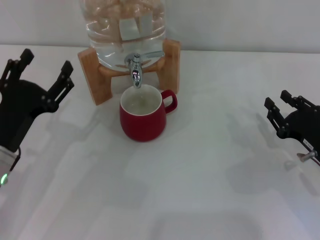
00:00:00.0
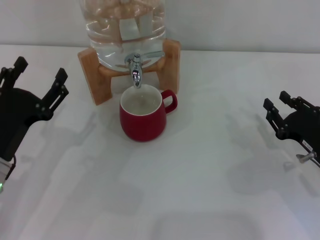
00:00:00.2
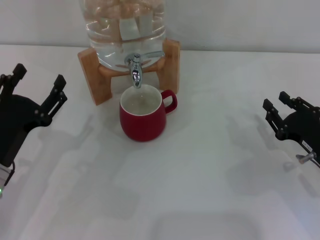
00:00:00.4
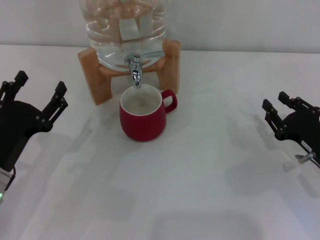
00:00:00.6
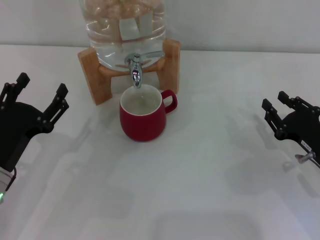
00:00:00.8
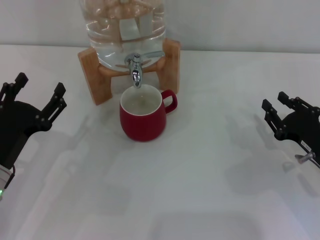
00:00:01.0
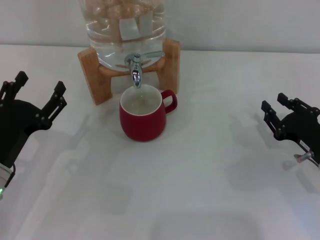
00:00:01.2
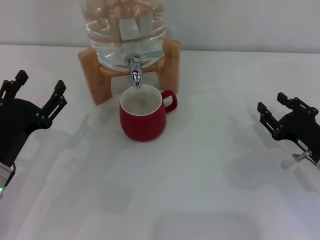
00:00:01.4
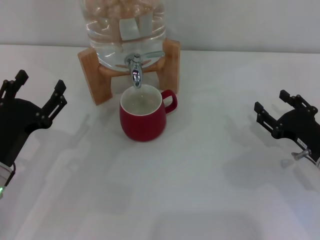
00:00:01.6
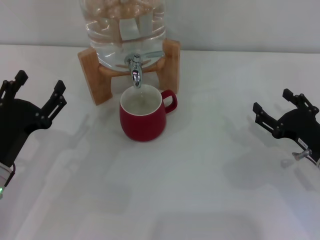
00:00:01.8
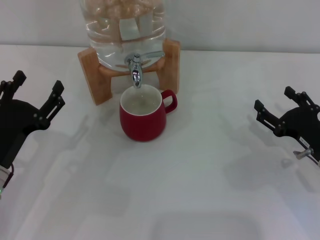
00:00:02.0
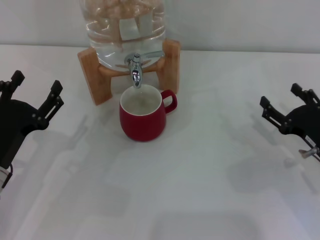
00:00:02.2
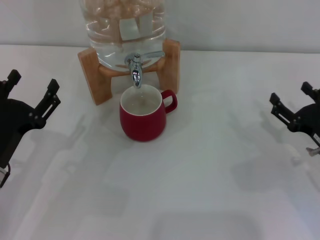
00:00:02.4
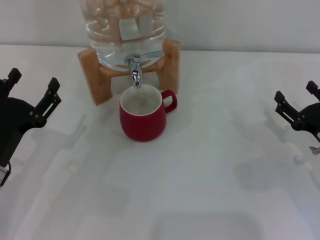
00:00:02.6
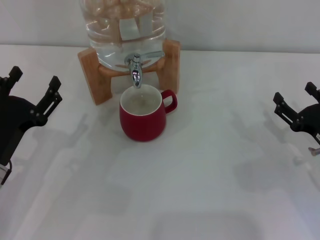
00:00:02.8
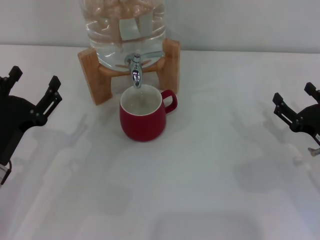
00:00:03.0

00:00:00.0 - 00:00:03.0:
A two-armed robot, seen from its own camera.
Task of the whole recording: the right gripper pick up the red cup and place it horizontally under the faucet, the left gripper turn on the faucet to fill the cup, and then turn off the faucet.
00:00:00.0 - 00:00:01.6: The grippers move only a little.
00:00:01.6 - 00:00:03.0: The right gripper opens up.
